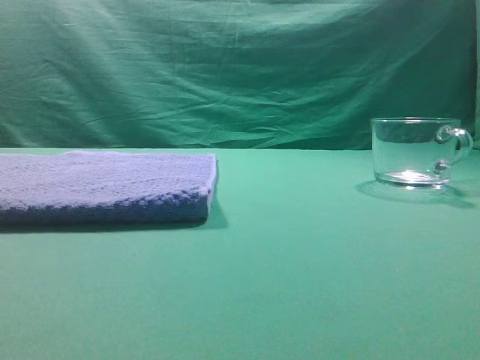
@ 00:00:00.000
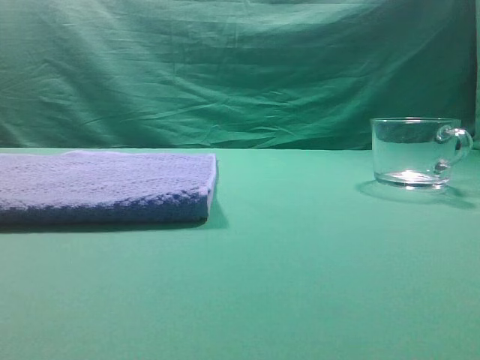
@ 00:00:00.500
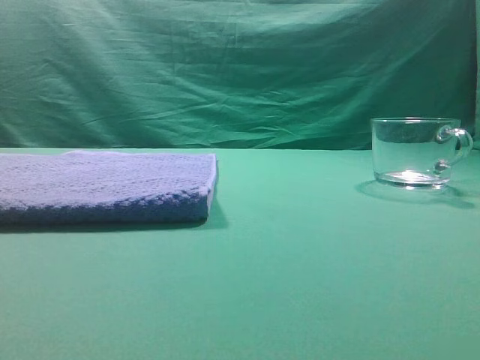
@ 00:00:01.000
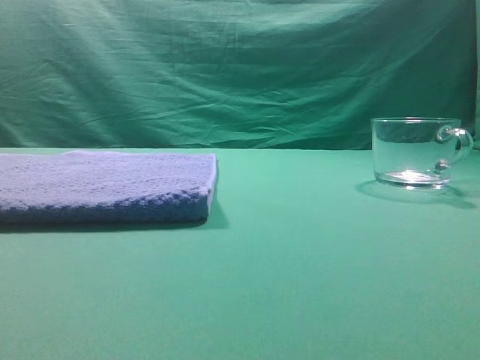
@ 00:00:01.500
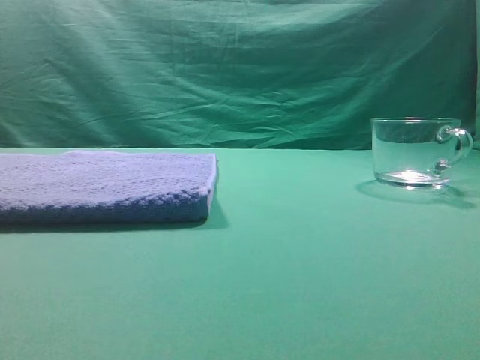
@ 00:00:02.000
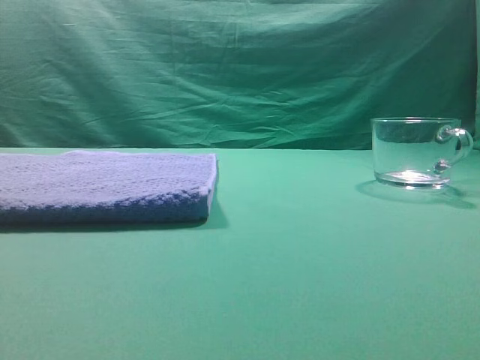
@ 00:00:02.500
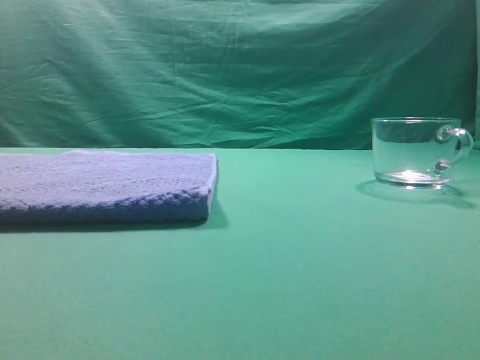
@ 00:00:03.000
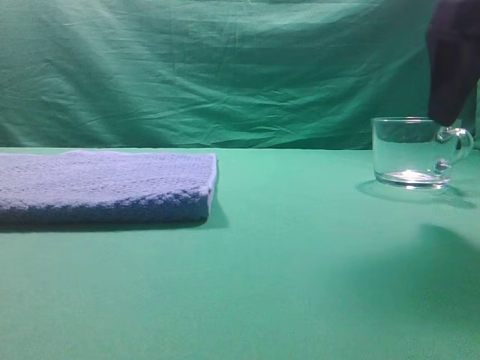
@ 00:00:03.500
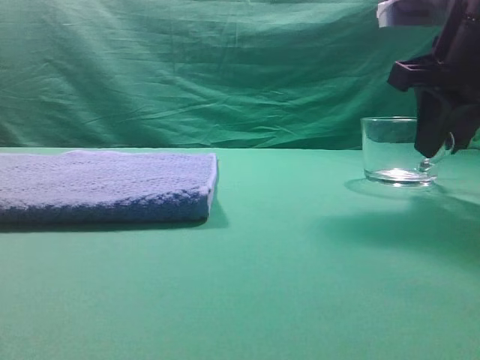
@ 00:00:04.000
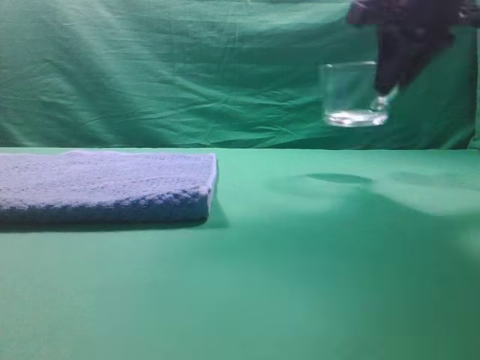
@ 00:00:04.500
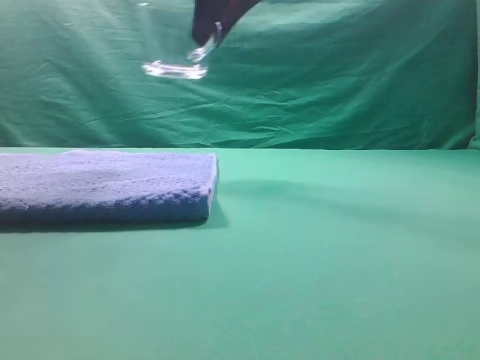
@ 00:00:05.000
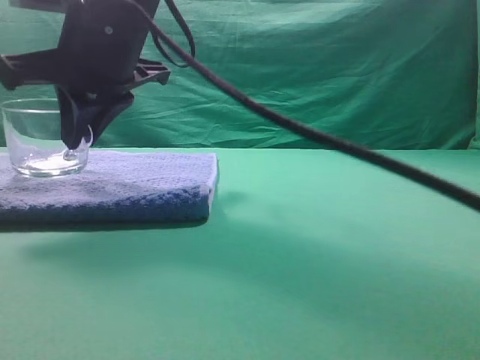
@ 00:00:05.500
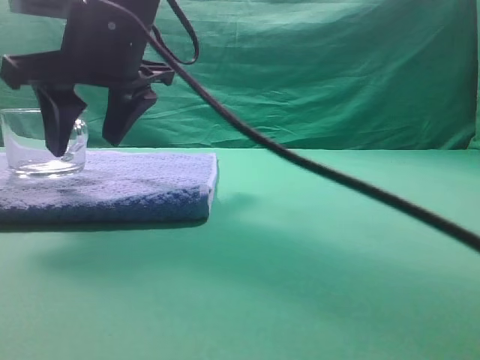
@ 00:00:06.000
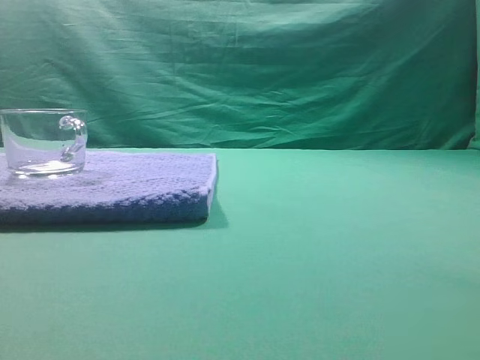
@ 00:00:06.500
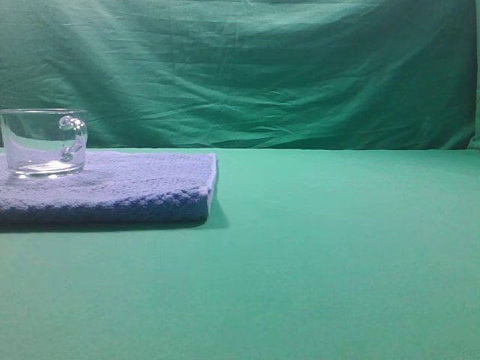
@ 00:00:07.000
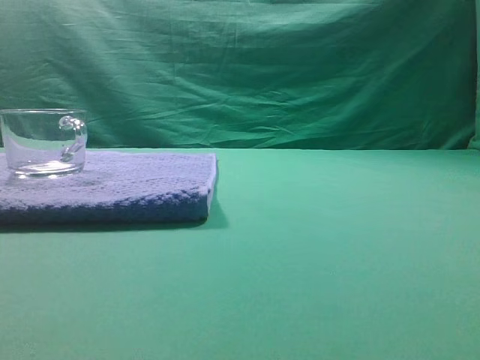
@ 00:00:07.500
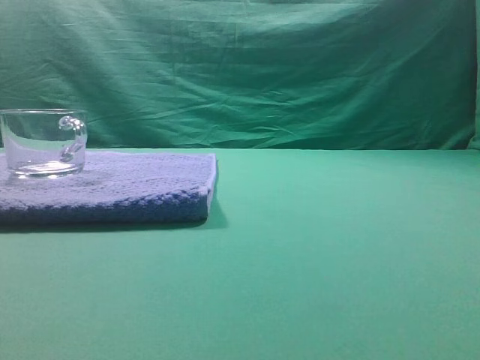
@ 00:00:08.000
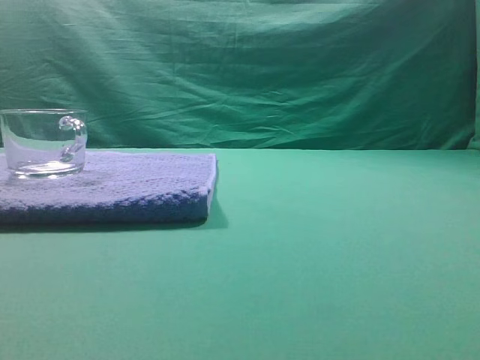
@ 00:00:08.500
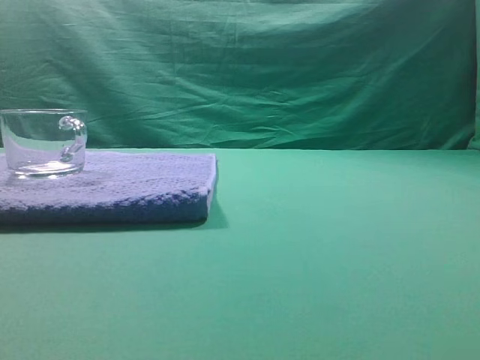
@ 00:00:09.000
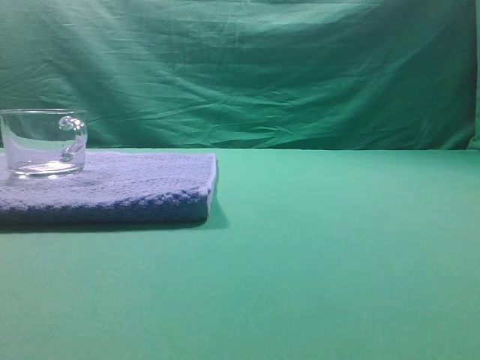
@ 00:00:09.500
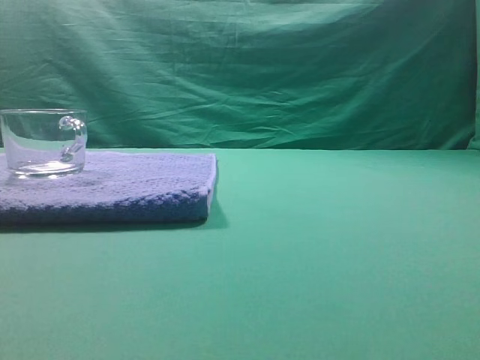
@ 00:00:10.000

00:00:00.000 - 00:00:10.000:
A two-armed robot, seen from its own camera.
Task of the whole recording: grasp the transparent glass cup and place it within the blue towel.
Step, 00:00:00.000 - 00:00:04.000: Grasp the transparent glass cup.
Step, 00:00:04.500 - 00:00:06.000: Place the glass cup on the blue zone.
